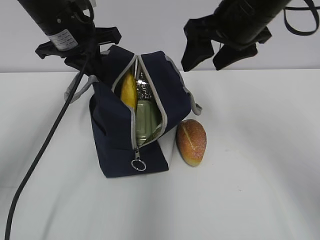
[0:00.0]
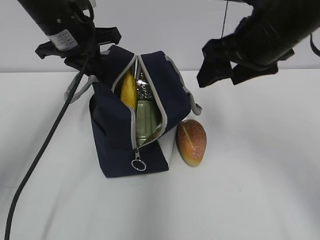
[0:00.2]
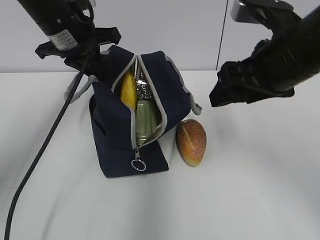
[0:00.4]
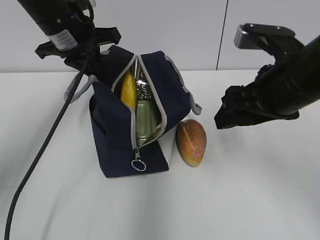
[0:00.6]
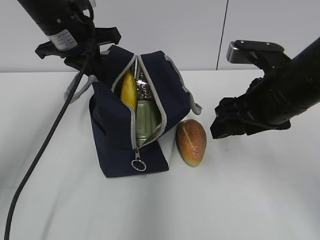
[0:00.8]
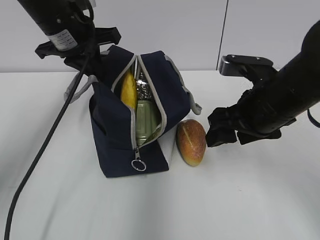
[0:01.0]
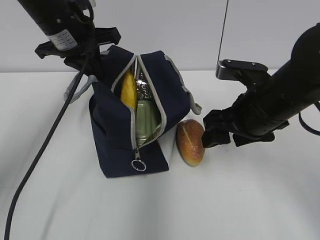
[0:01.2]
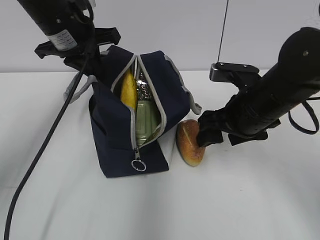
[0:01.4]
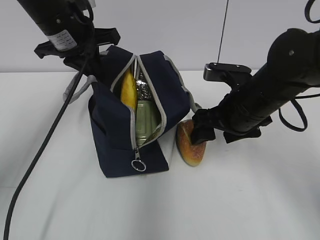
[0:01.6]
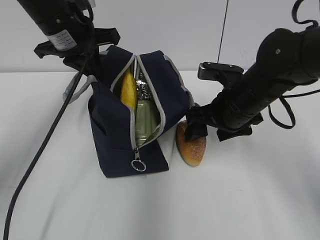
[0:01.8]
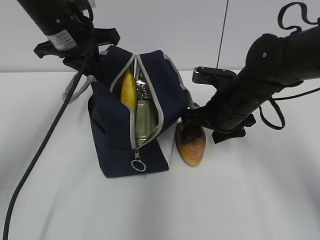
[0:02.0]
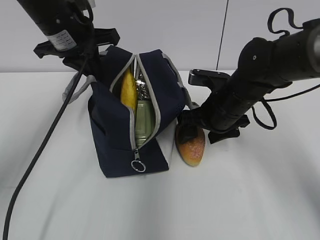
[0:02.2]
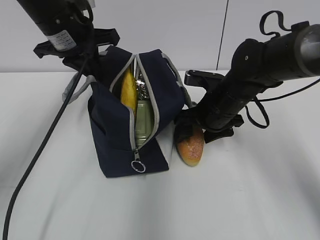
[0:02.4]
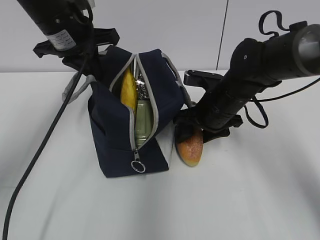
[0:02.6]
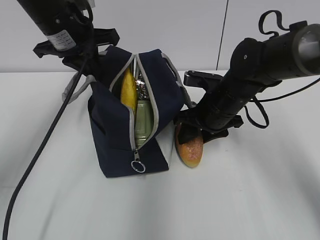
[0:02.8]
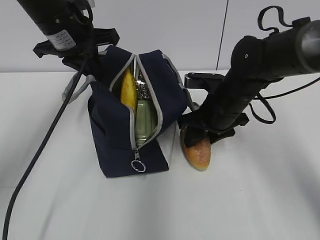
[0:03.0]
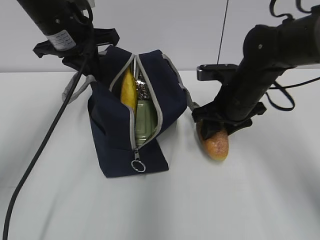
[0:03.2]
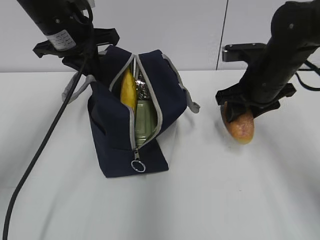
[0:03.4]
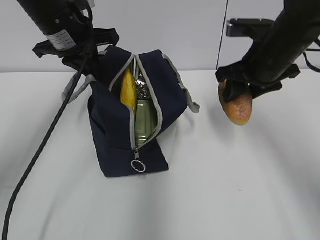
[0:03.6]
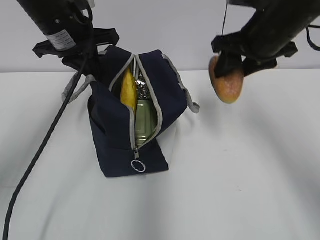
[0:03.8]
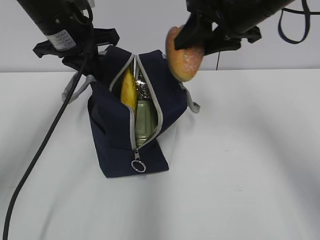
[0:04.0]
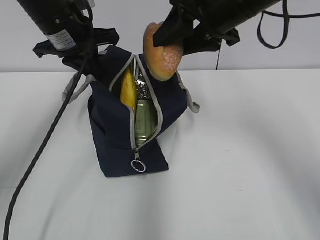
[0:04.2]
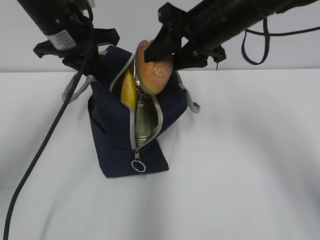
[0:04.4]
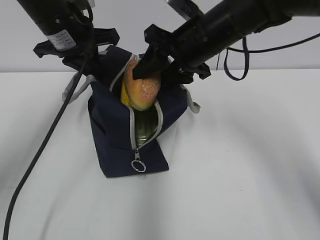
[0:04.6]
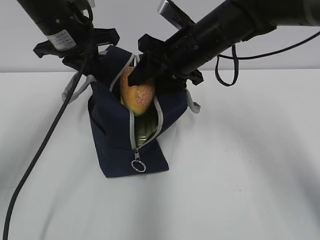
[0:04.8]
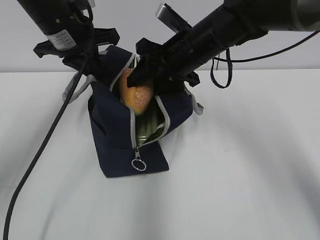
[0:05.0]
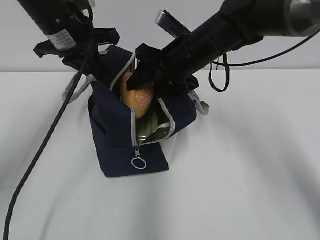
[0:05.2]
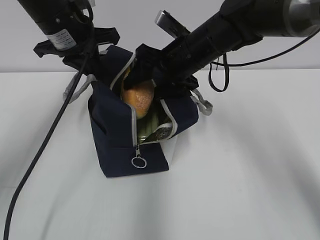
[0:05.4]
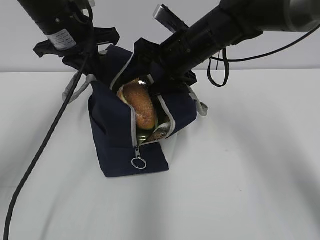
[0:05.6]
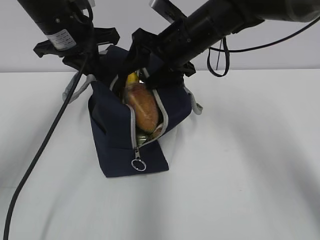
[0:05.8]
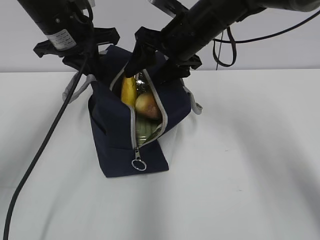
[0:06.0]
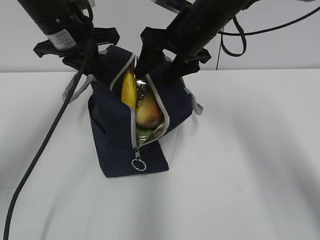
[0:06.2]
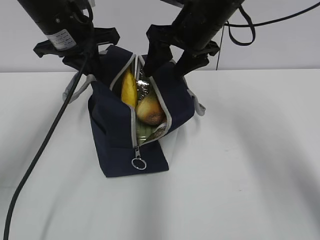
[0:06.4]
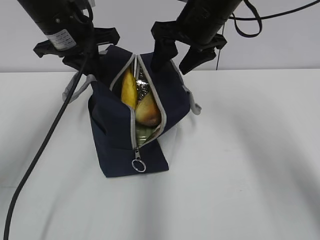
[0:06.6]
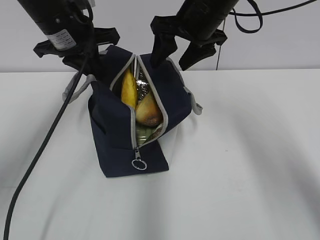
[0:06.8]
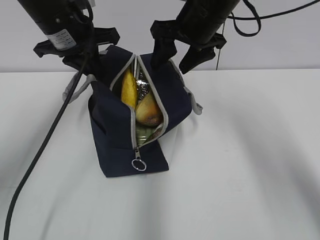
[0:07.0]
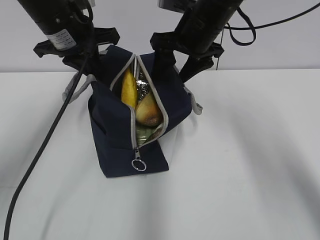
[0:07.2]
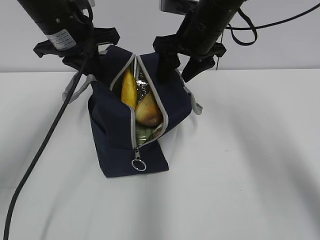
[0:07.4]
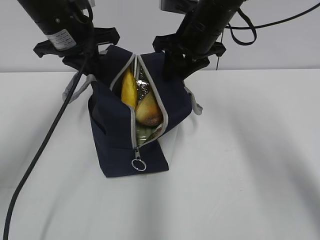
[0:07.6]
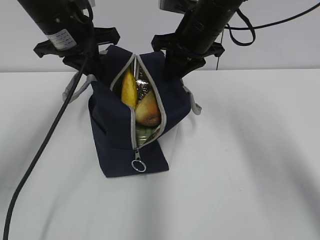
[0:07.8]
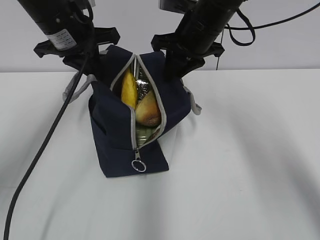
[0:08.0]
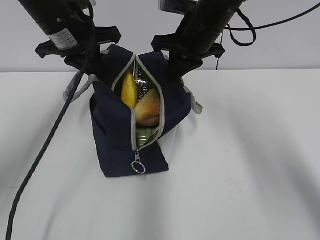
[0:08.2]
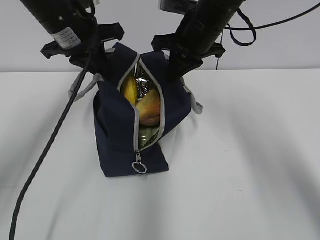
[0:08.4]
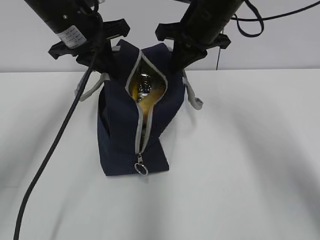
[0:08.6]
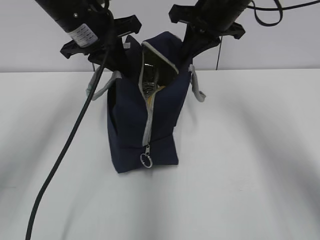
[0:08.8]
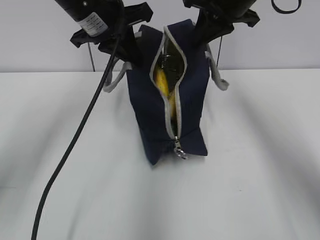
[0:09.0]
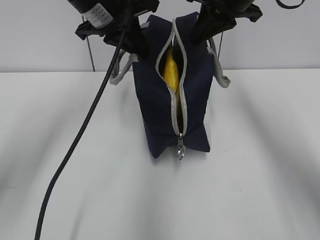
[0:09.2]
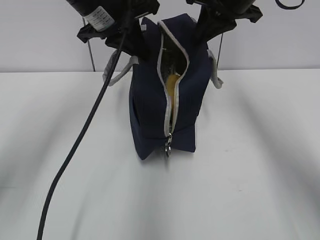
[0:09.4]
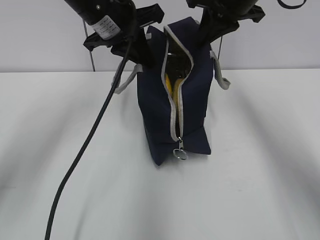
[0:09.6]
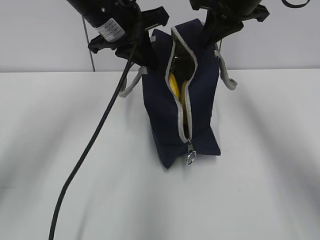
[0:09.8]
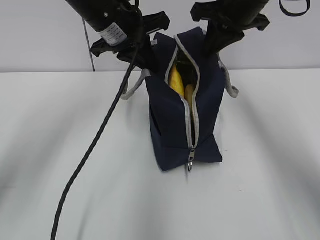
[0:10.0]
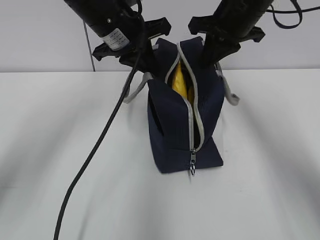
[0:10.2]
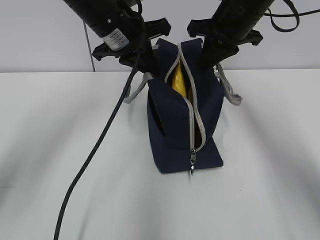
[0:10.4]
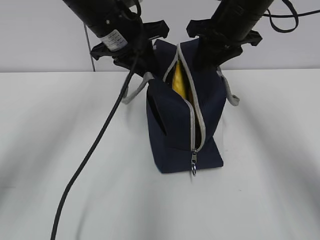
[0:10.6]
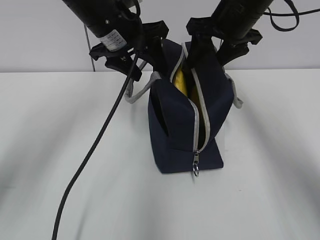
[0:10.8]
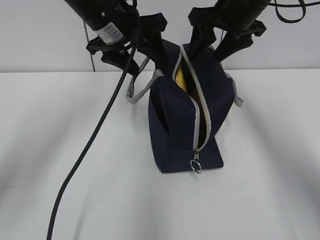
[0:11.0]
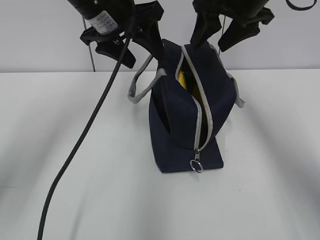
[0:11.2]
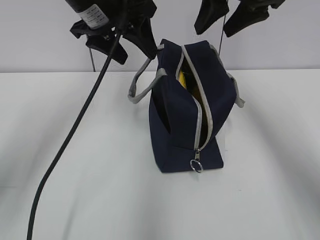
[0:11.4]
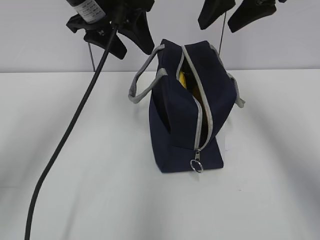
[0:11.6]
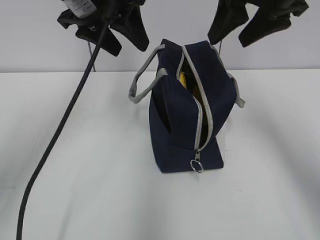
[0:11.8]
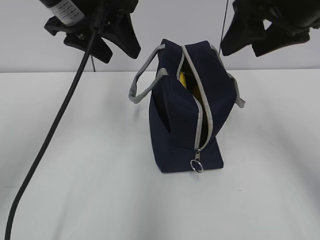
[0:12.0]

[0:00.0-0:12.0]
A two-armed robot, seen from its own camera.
Step, 0:00.0 to 0:02.8: Grab the bread with your right hand.
Step, 0:06.4 to 0:08.2: Grab the lunch bag with your right hand.
Step, 0:08.4 to 0:10.6: Move the lunch bag to the right.
0:00.0 to 0:01.6: The right gripper travels downward by some 15 cm.
0:01.6 to 0:03.0: The right gripper goes about 5 cm forward.
0:03.0 to 0:04.4: The right gripper goes some 15 cm upward.
0:04.4 to 0:06.0: The right gripper ends up approximately 5 cm from where it was.
0:06.0 to 0:07.6: The right gripper closes its fingers.
0:07.6 to 0:09.0: The right gripper travels upward by roughly 5 cm, and closes its fingers, while the left gripper moves about 5 cm.
0:10.4 to 0:12.0: The right gripper shifts roughly 15 cm backward and upward, and opens its fingers. Meanwhile the left gripper shifts approximately 10 cm upward and backward, and opens.

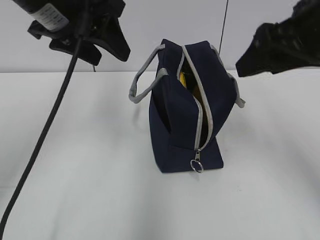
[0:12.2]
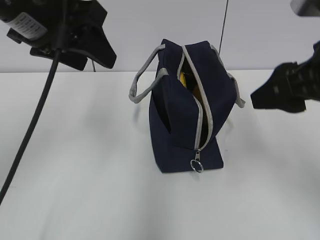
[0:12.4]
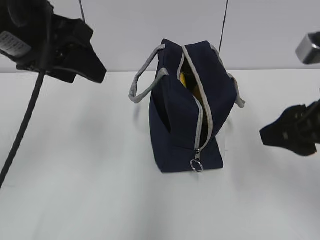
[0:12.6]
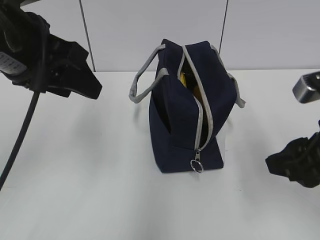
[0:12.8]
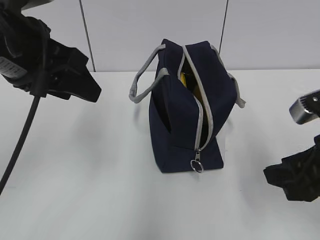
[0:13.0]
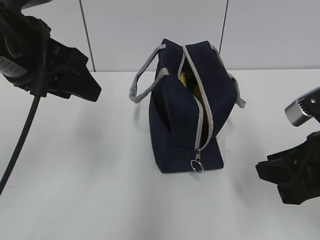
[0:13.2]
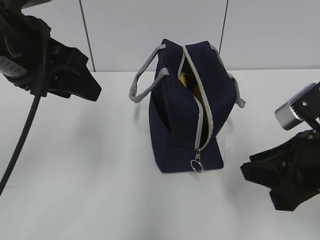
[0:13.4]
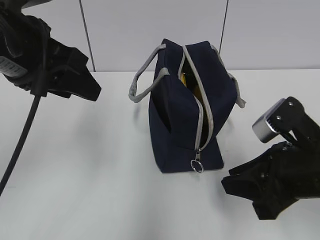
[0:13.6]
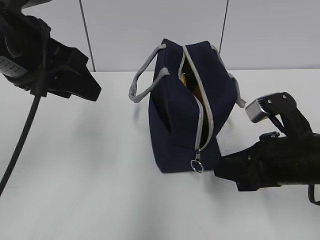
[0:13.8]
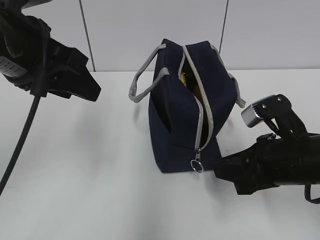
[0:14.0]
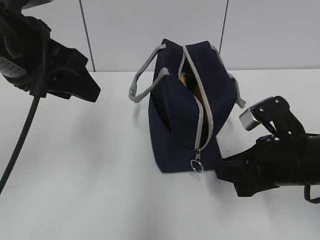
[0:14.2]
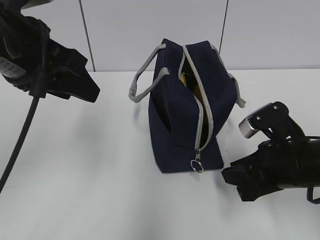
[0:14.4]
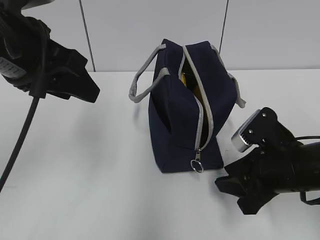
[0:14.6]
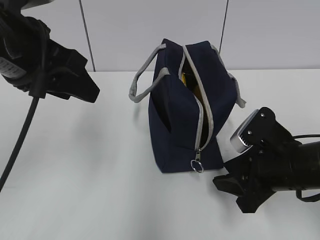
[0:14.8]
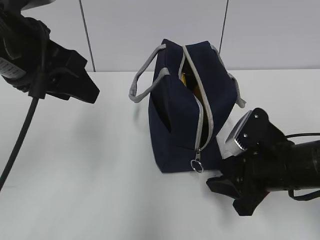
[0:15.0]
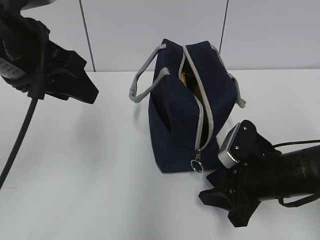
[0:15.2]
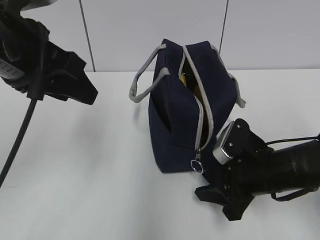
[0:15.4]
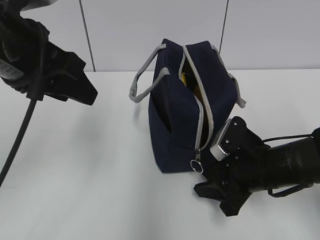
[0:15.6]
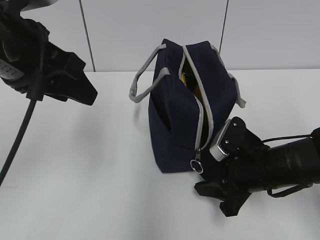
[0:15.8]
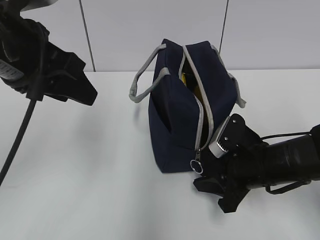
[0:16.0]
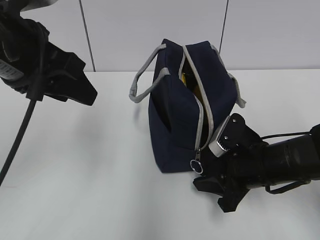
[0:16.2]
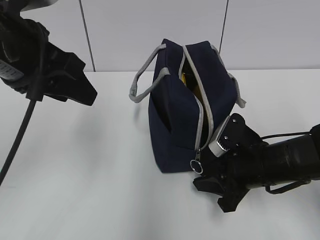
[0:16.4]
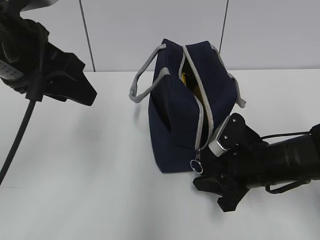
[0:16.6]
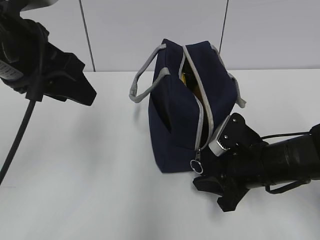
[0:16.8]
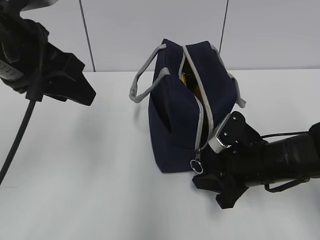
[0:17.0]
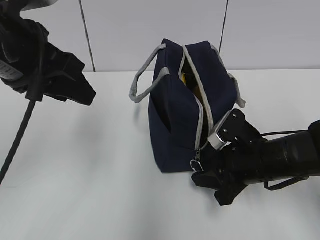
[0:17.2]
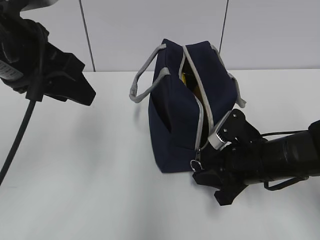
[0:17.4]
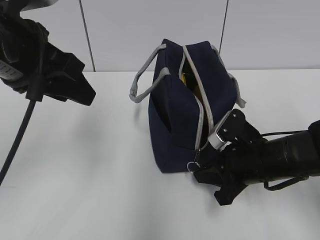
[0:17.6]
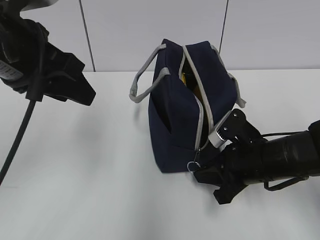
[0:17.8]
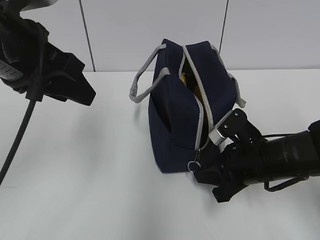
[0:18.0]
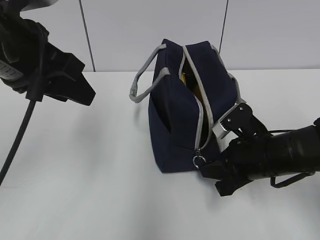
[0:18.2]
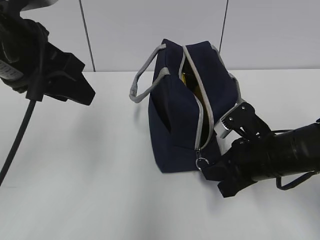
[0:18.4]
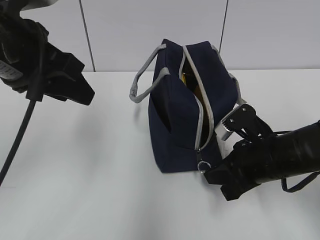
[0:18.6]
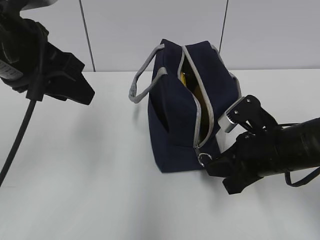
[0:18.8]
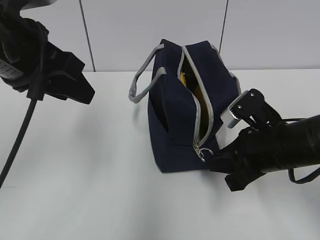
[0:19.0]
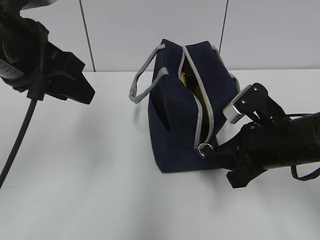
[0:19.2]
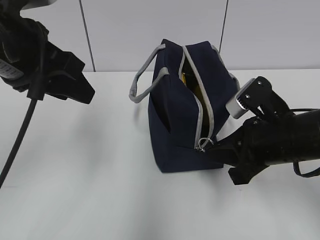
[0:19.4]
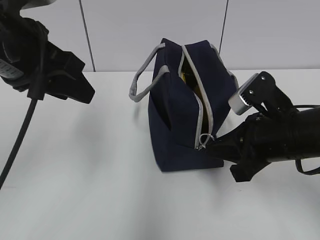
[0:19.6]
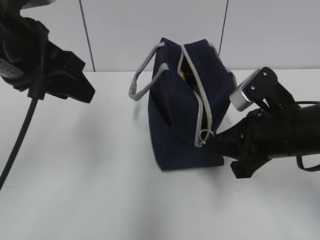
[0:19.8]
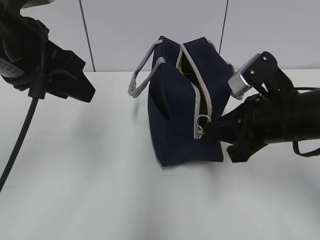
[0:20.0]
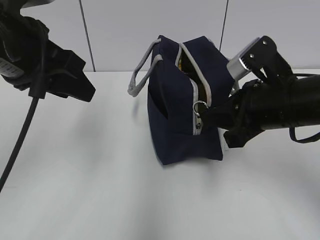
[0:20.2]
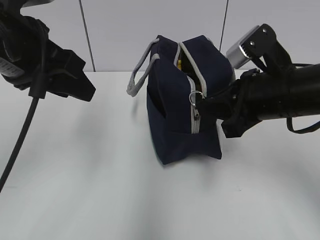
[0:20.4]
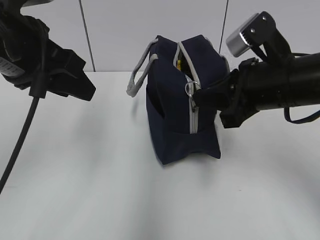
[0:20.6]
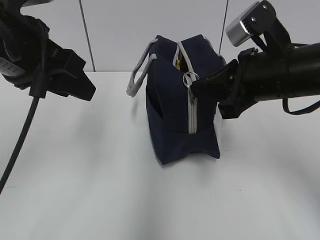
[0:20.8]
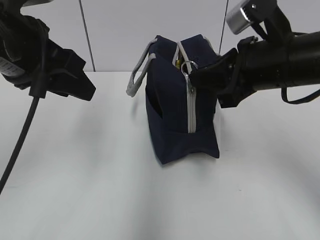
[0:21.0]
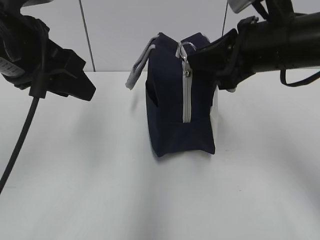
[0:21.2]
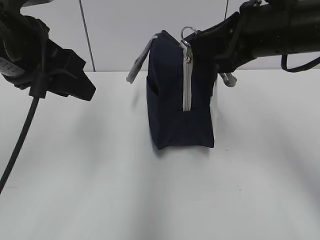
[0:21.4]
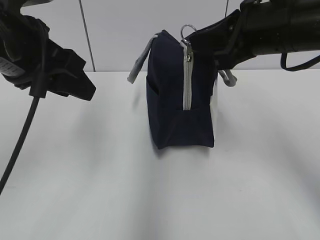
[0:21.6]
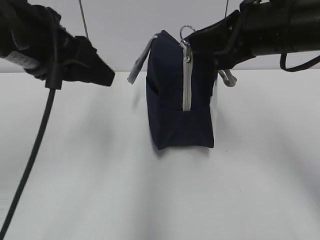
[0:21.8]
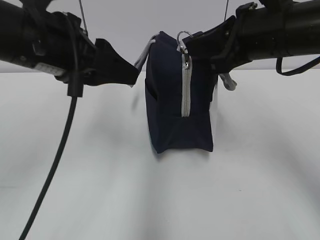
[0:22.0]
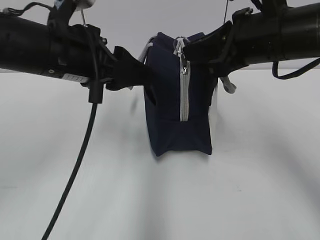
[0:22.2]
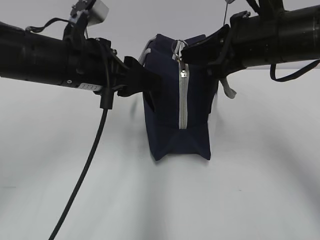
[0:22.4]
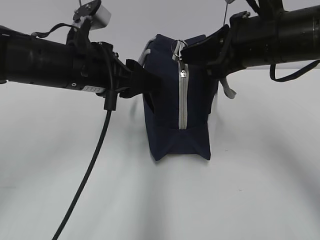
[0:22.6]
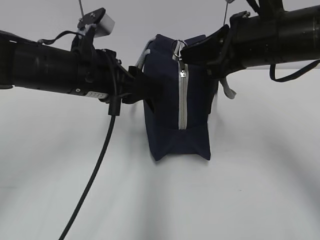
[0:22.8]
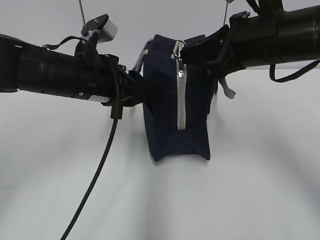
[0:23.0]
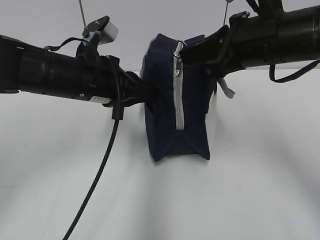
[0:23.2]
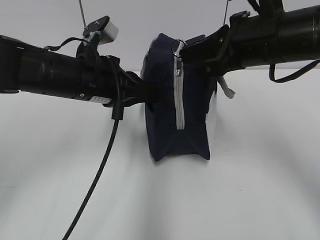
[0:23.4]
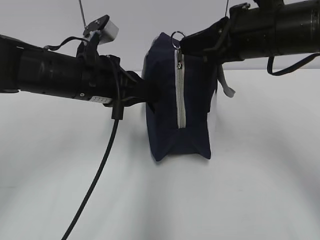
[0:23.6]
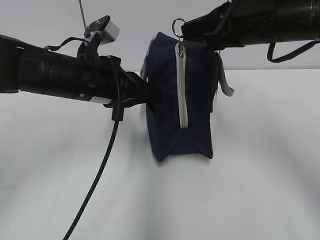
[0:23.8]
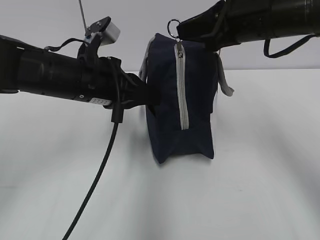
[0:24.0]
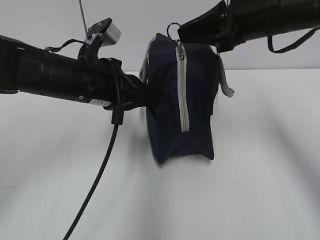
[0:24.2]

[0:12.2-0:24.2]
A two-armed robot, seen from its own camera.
0:12.2 to 0:13.8: The right gripper shifts some 15 cm downward, and closes its fingers, while the left gripper is displaced backward by about 5 cm.
0:13.8 to 0:15.2: The right gripper moves downward, about 5 cm.
0:15.2 to 0:16.6: There are only small adjustments of the grippers.
0:16.6 to 0:18.2: The right gripper closes up.
0:18.2 to 0:19.8: The right gripper shifts roughly 5 cm upward.
0:19.8 to 0:21.2: The right gripper shifts roughly 10 cm upward.
0:21.2 to 0:22.6: The left gripper goes about 10 cm downward and to the right.
0:22.6 to 0:24.2: The left gripper closes.
